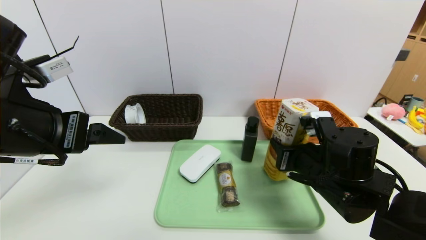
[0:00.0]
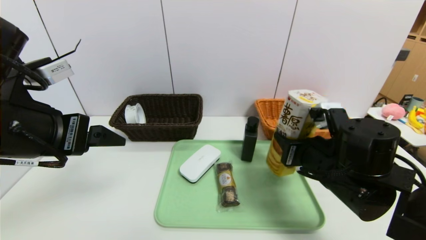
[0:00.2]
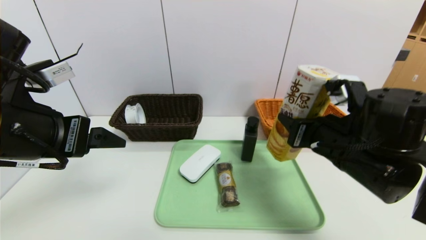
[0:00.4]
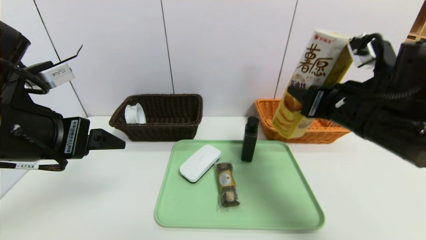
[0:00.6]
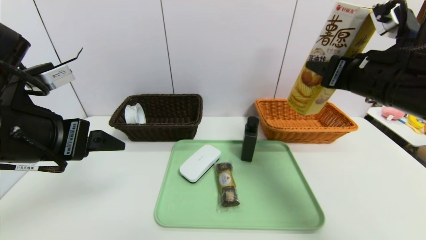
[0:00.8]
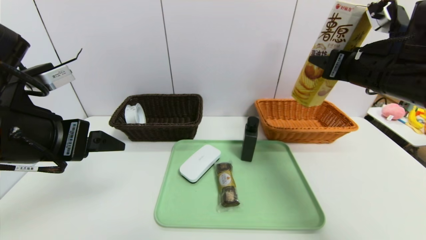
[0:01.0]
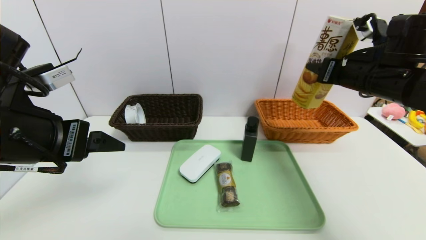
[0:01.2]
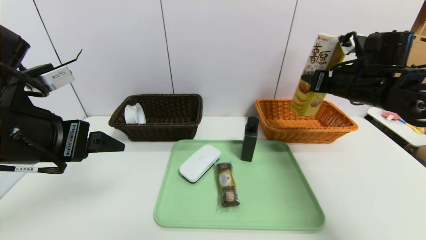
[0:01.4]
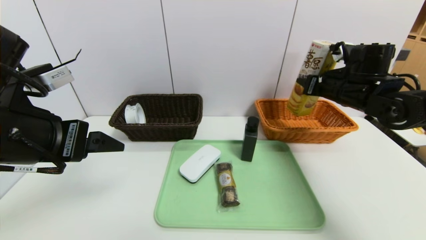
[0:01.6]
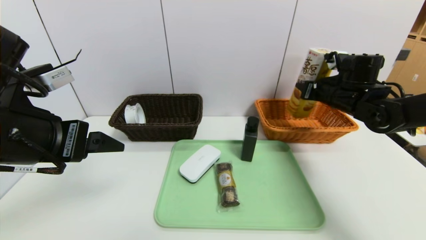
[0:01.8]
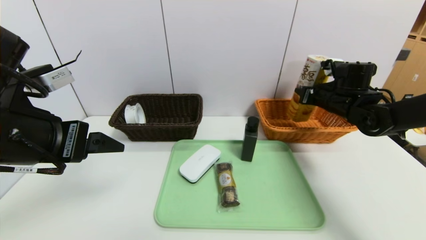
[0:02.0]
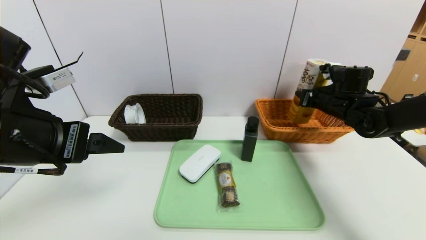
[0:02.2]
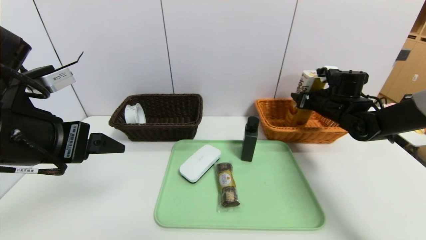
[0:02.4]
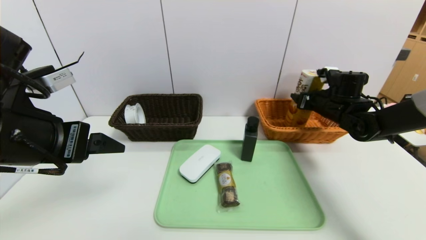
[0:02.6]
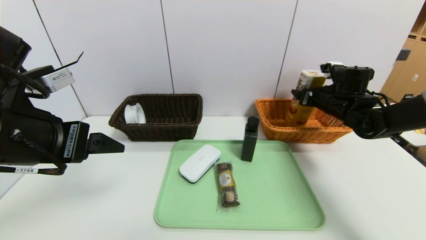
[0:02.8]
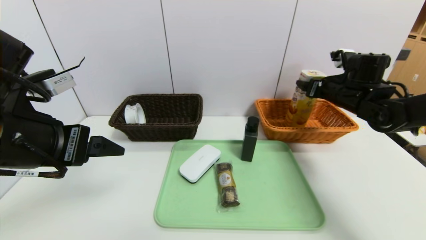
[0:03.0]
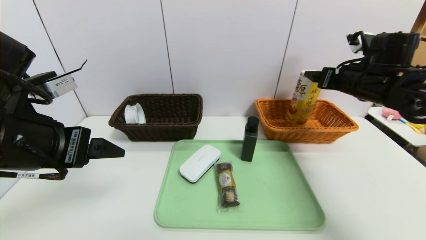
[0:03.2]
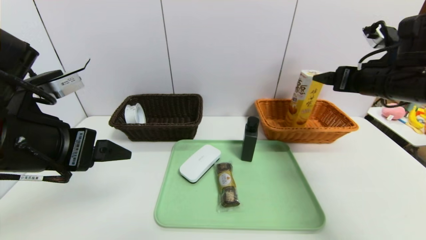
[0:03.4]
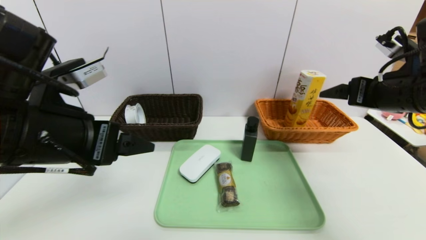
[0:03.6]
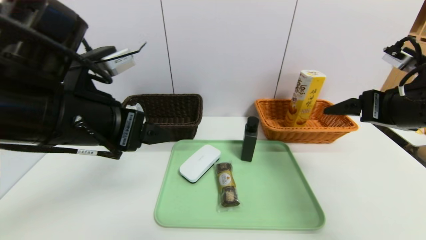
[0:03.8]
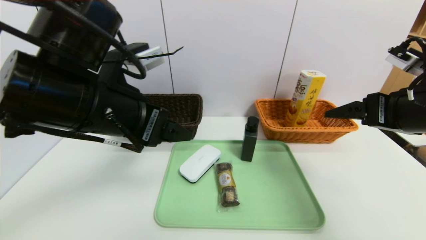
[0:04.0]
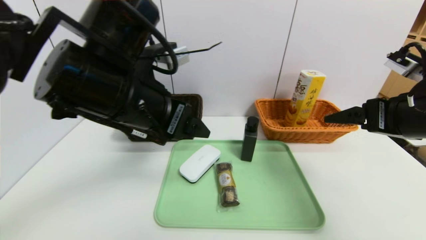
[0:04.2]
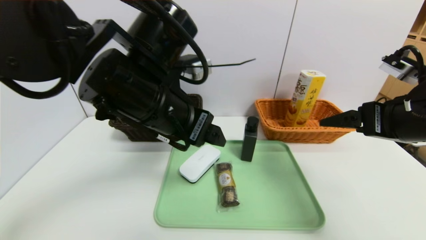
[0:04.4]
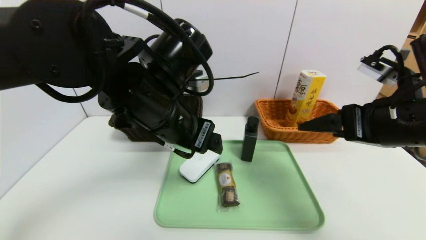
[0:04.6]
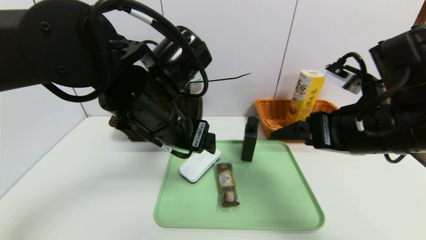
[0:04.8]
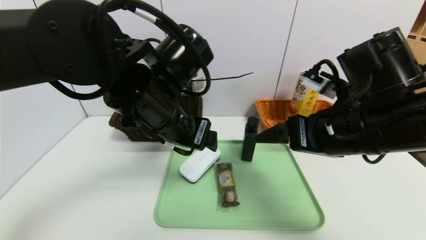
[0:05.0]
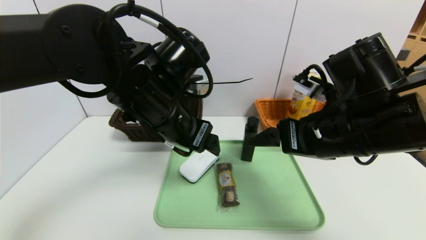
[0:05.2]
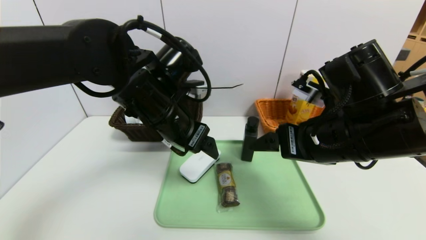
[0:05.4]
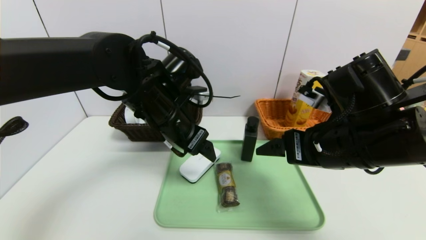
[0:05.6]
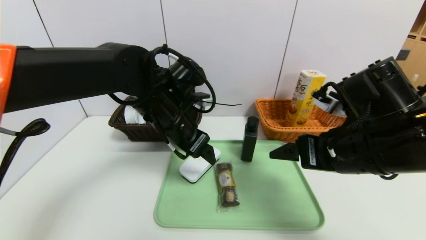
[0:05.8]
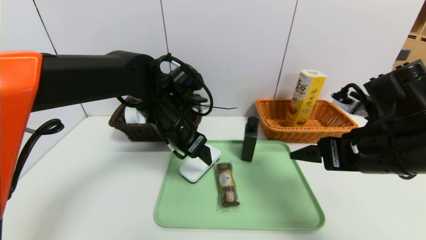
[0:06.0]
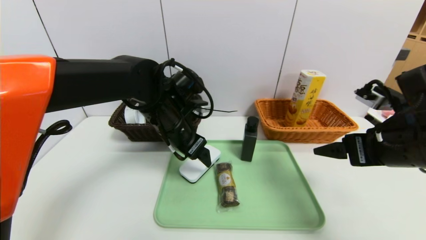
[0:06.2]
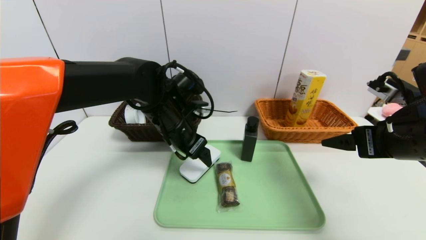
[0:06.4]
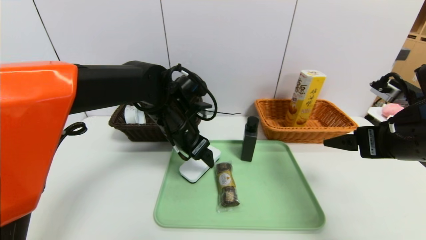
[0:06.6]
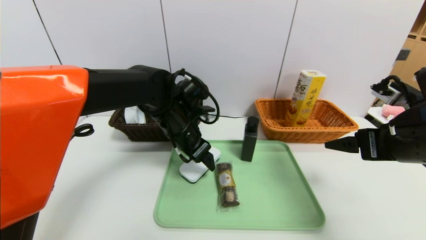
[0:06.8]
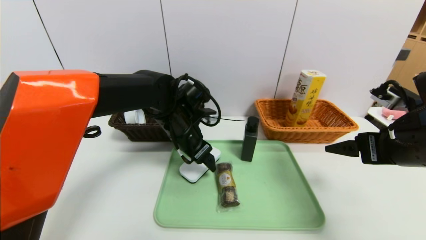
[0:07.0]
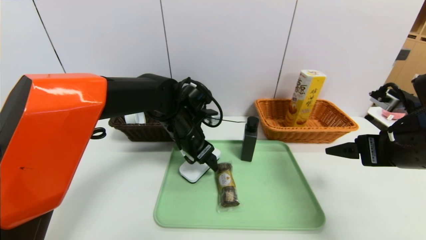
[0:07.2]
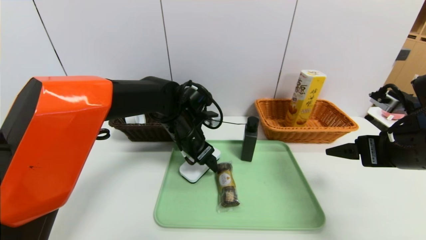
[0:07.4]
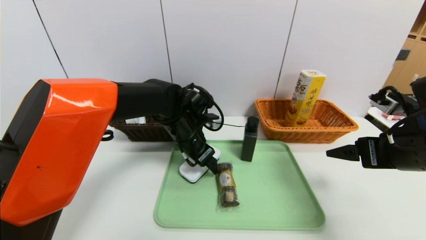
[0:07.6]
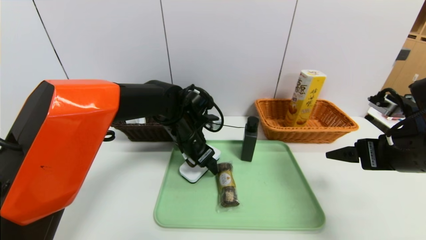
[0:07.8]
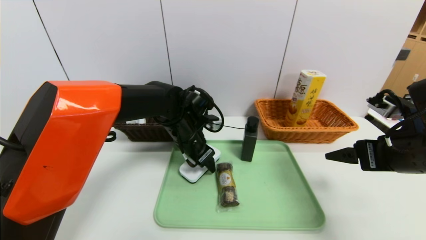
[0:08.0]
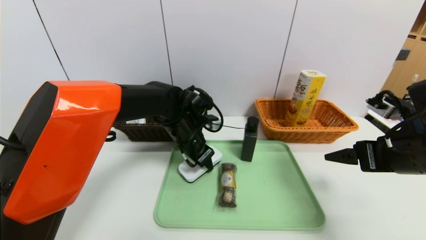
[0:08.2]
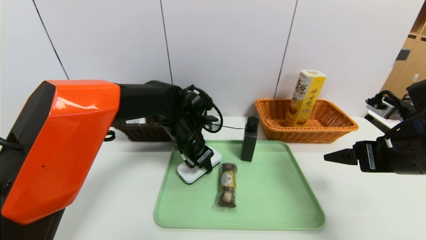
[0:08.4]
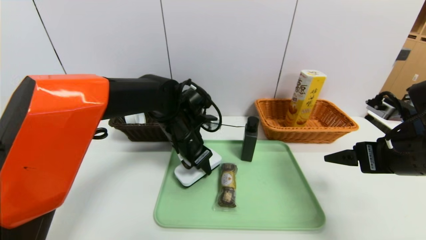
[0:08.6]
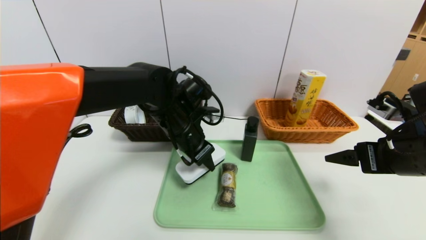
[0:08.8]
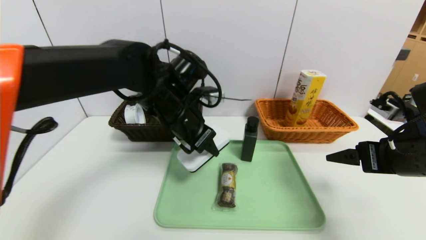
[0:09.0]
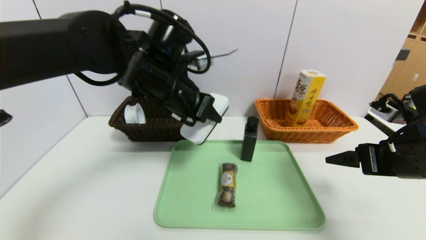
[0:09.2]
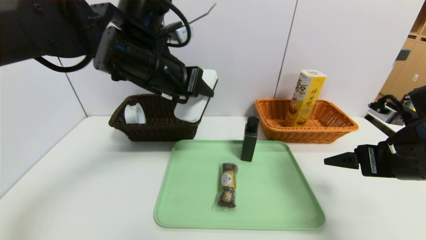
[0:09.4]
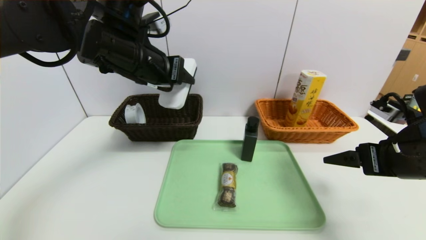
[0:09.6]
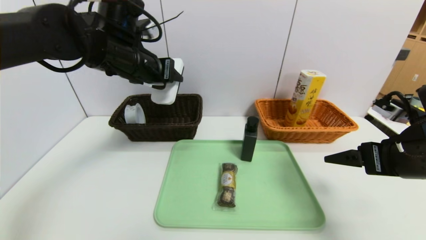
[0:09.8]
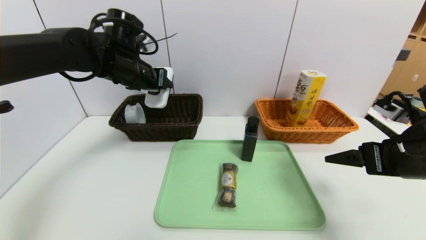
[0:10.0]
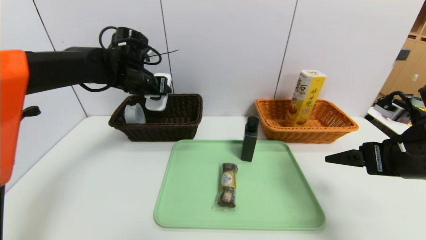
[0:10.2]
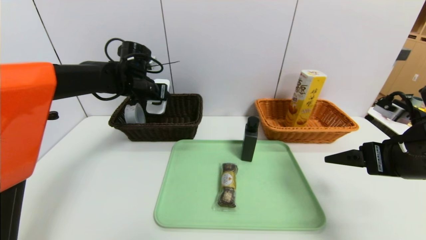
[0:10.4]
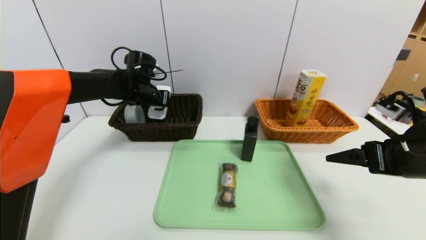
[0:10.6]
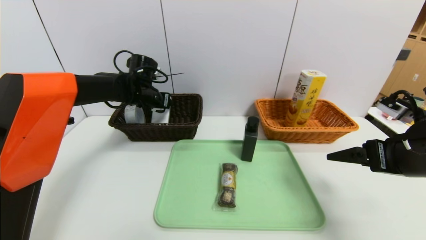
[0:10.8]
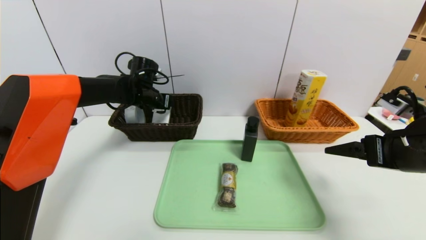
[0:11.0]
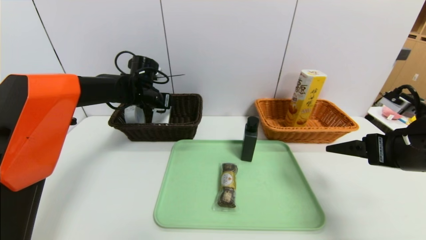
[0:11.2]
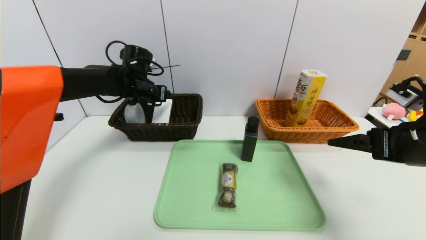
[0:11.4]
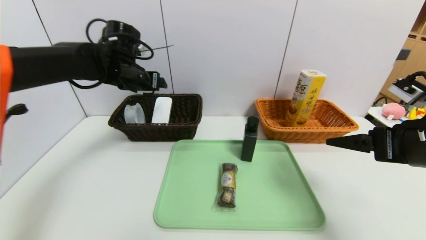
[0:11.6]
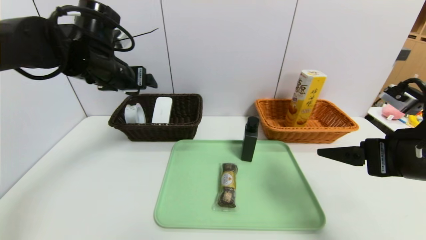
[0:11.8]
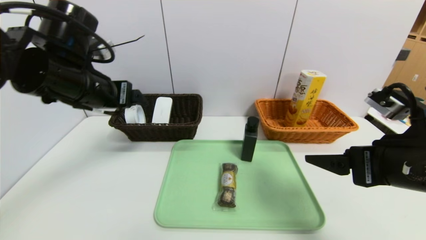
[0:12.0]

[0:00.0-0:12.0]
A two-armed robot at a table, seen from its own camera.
Task of the whole recording: place the food in the right basket with the right gripper, and place the non food items in the left basket with the left gripper.
Step, 0:00.0 to 0:03.6: Grasp the potato chips and put it in the right basket.
Step, 0:03.8 to 0:11.6: Grasp the white eraser and put it in the left basket.
0:00.0 to 0:01.6: The right gripper travels forward, to the right and upward by about 20 cm.
0:01.6 to 0:03.0: The right gripper opens.
0:03.0 to 0:04.4: The left gripper is displaced to the right and forward by roughly 15 cm; the right gripper heads backward, covering some 20 cm.
0:04.4 to 0:06.0: The right gripper goes to the left and returns, about 10 cm each way, while the left gripper goes about 10 cm forward and downward.
0:06.0 to 0:07.6: The left gripper shifts approximately 5 cm downward; the right gripper shifts about 5 cm to the right.
0:07.6 to 0:09.0: The left gripper travels upward and backward by roughly 10 cm, and closes its fingers.
0:09.0 to 0:10.4: The left gripper moves forward and to the left, roughly 20 cm.
0:10.4 to 0:12.0: The right gripper goes some 5 cm to the left, while the left gripper travels backward by approximately 20 cm, and opens up.

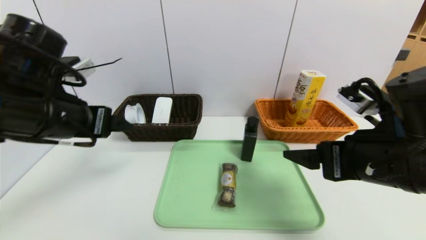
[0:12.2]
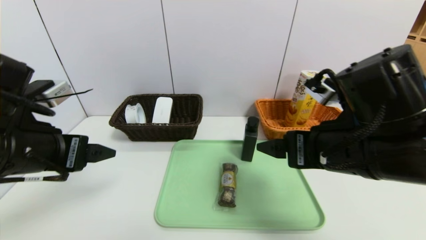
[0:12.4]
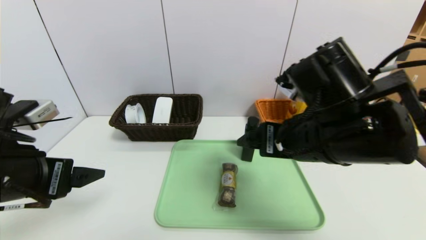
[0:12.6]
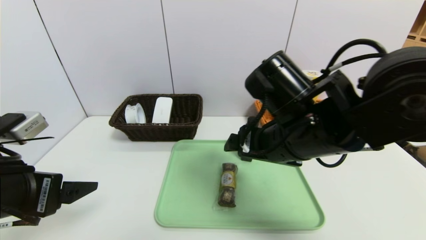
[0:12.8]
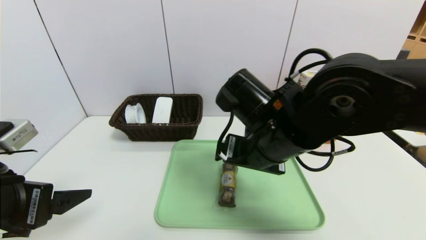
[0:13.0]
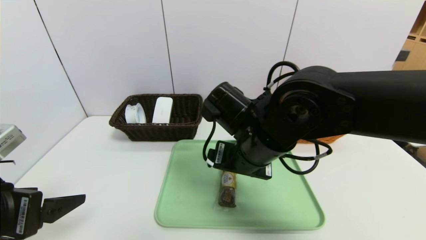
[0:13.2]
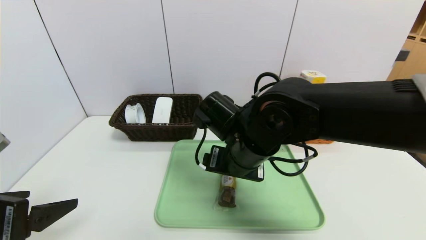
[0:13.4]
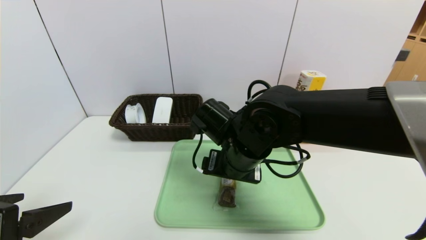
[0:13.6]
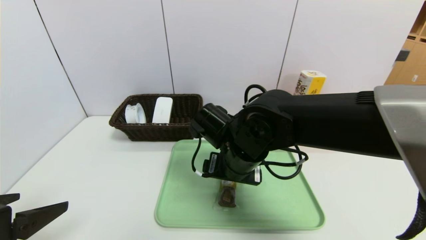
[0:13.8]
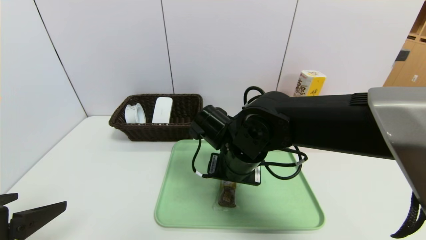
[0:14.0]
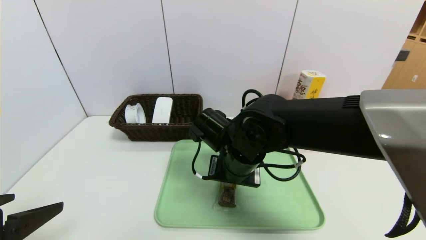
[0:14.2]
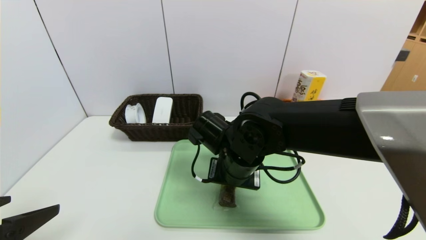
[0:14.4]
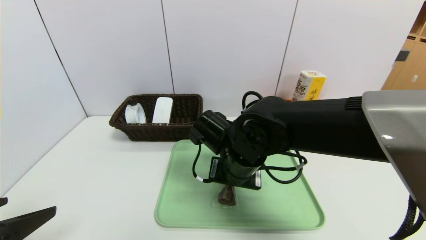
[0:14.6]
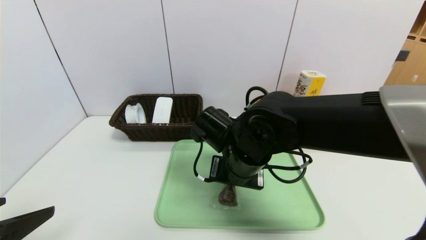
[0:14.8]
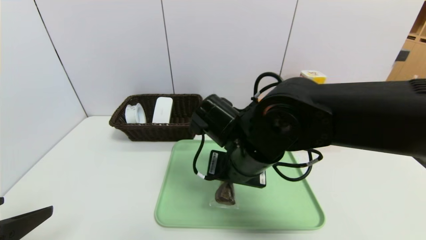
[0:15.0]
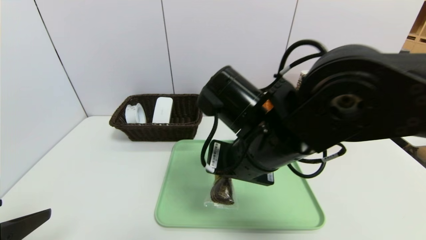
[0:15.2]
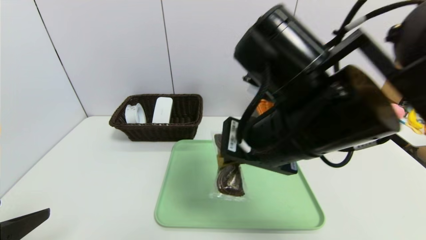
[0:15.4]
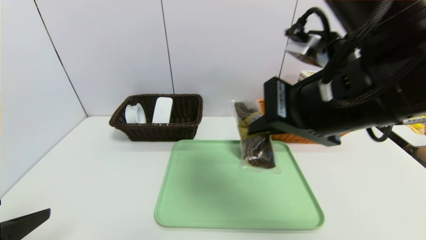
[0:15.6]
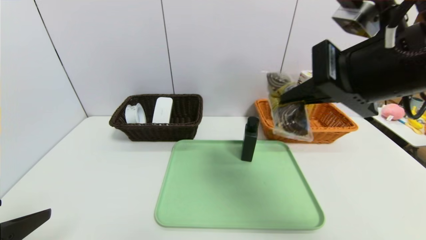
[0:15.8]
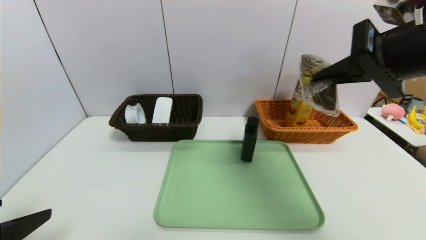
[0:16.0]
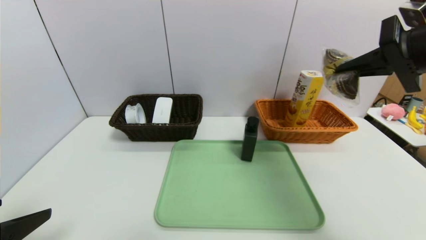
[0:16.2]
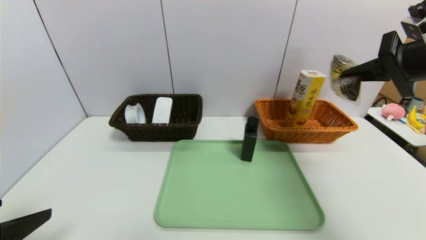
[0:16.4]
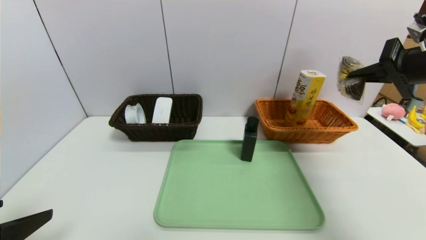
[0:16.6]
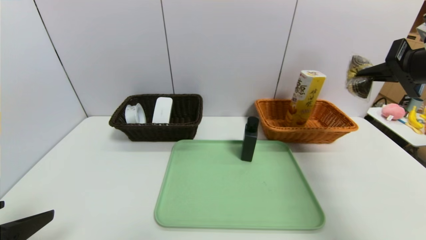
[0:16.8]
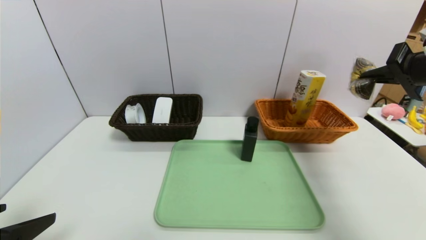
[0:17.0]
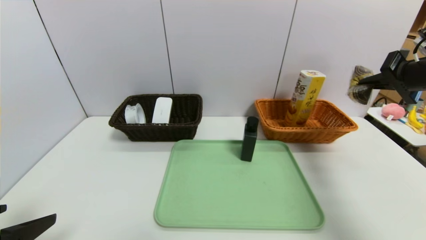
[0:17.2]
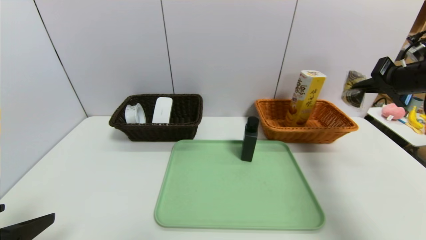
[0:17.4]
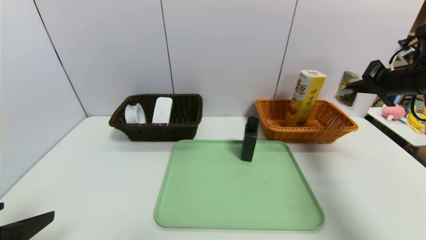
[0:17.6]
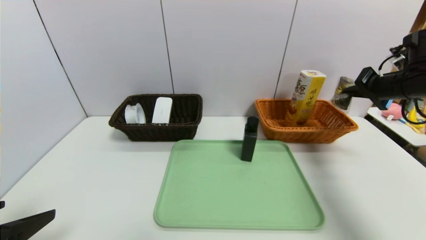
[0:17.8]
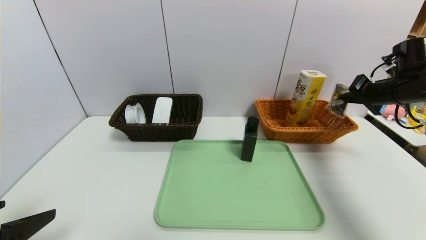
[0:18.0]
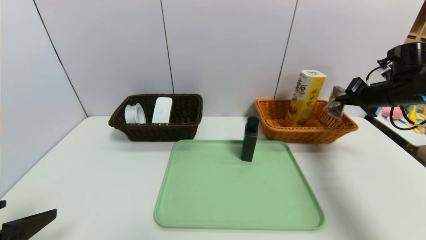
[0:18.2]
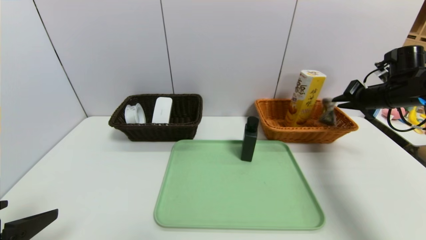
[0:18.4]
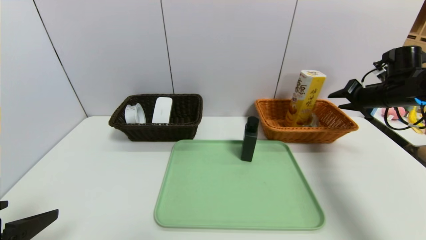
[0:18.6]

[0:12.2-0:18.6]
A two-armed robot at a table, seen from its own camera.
Task of the whole recording: place the food in the right basket with the right gripper, and place the non food items in the left basket with the left gripper.
0:12.2 to 0:13.8: The right gripper moves to the left, forward and downward, about 20 cm. The left gripper shifts roughly 15 cm backward.
0:13.8 to 0:15.4: The right gripper is displaced upward, backward and to the right by approximately 15 cm, and closes.
0:15.4 to 0:17.0: The right gripper shifts some 30 cm to the right.
0:17.0 to 0:18.6: The right gripper heads forward and downward, covering approximately 15 cm, and opens up.
